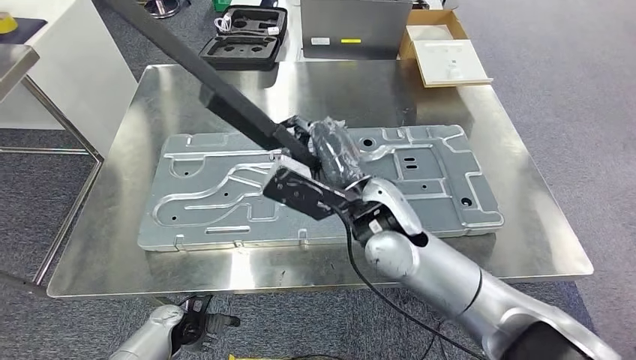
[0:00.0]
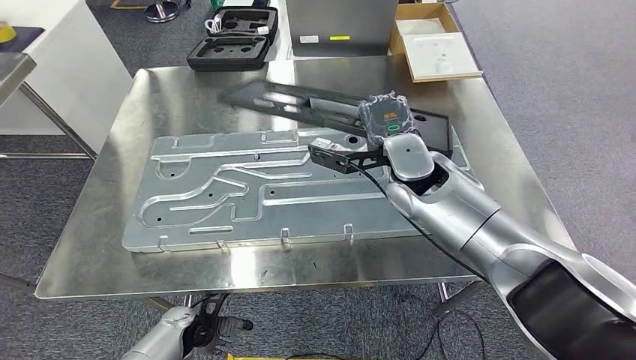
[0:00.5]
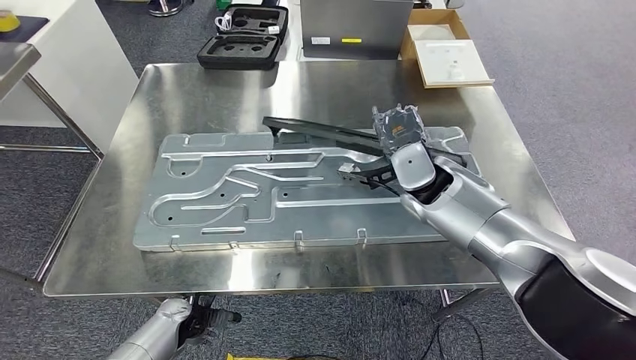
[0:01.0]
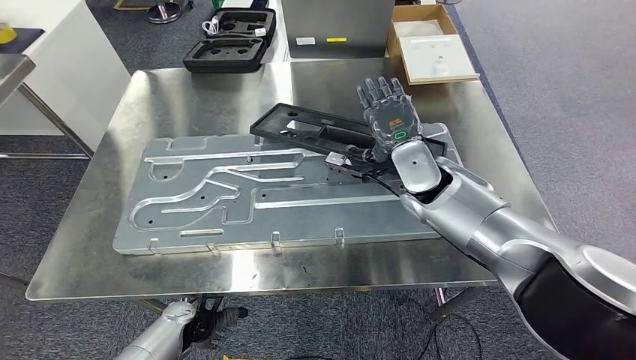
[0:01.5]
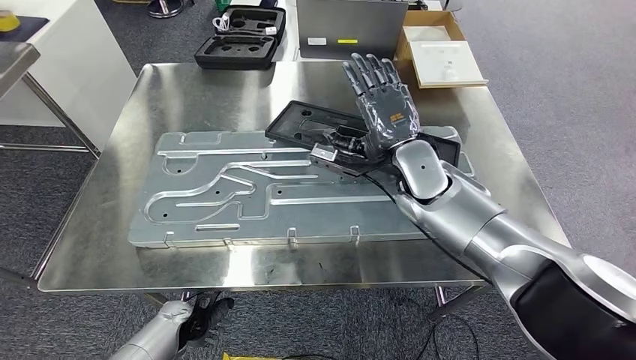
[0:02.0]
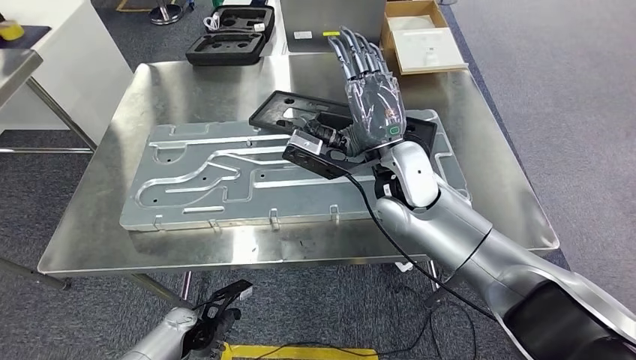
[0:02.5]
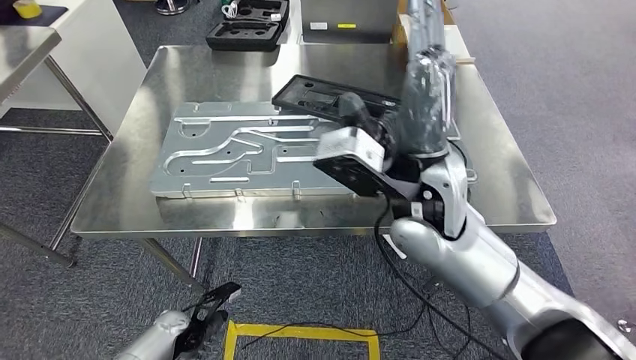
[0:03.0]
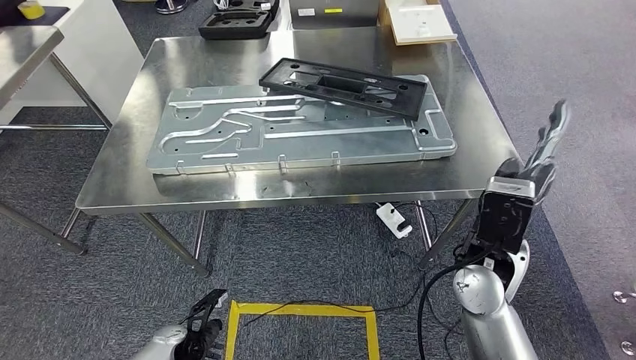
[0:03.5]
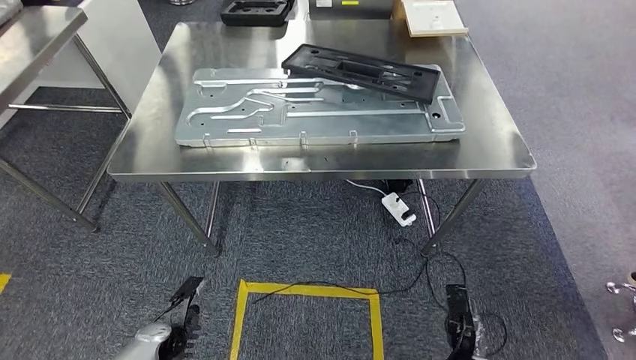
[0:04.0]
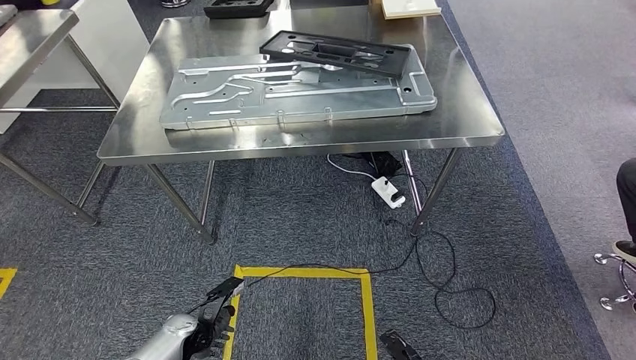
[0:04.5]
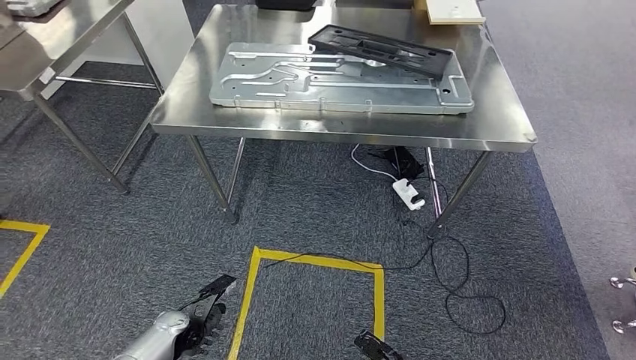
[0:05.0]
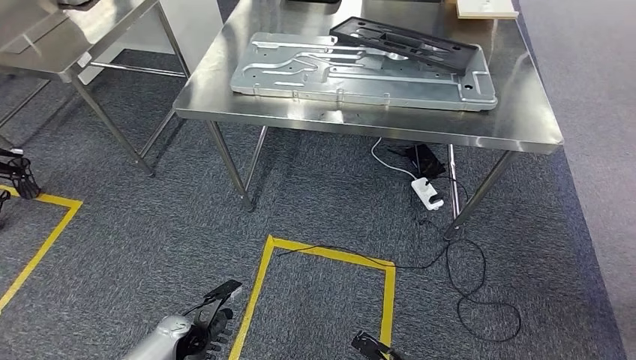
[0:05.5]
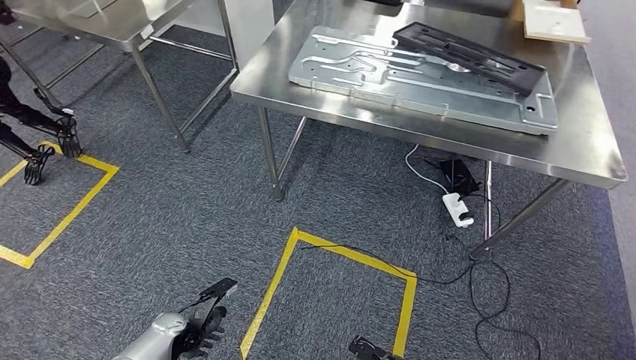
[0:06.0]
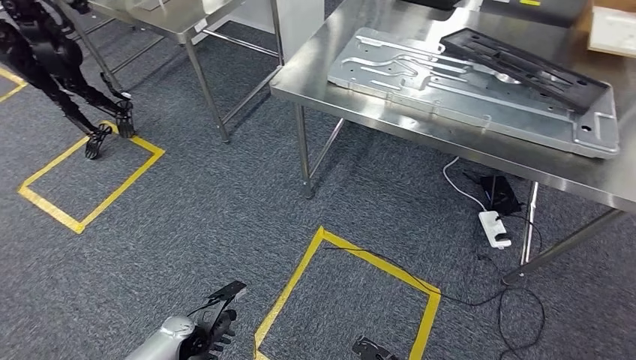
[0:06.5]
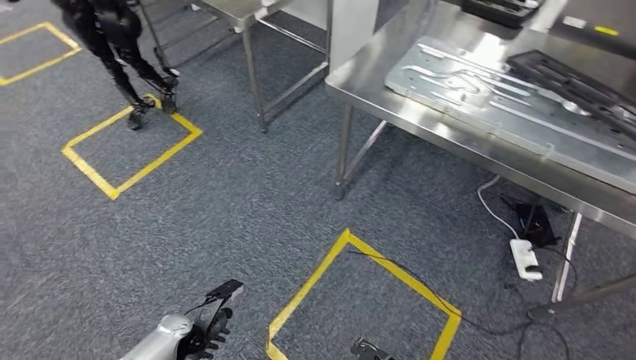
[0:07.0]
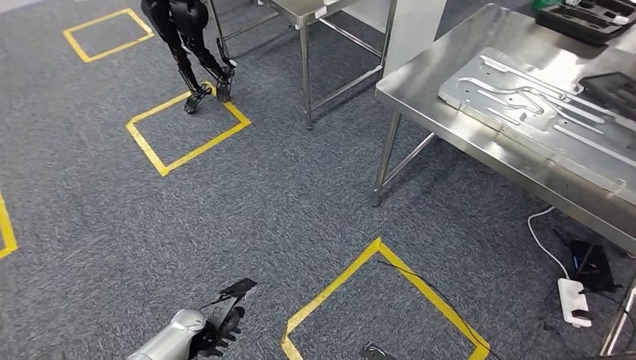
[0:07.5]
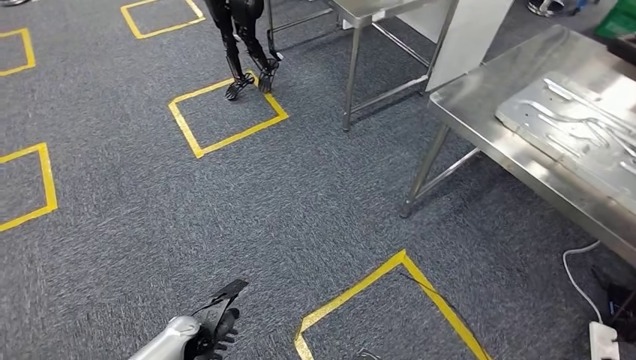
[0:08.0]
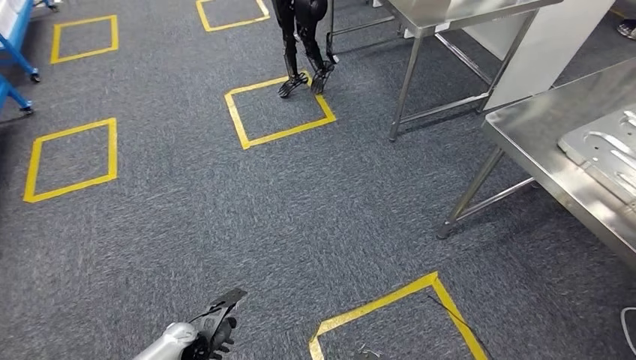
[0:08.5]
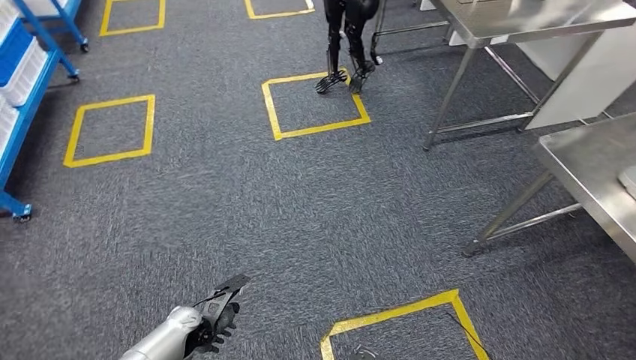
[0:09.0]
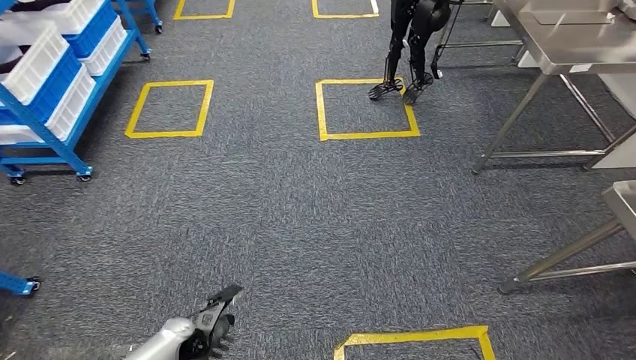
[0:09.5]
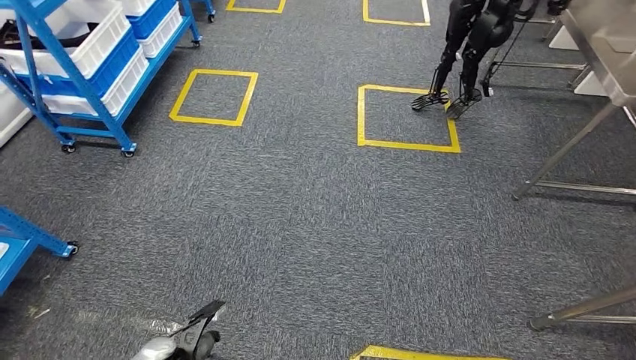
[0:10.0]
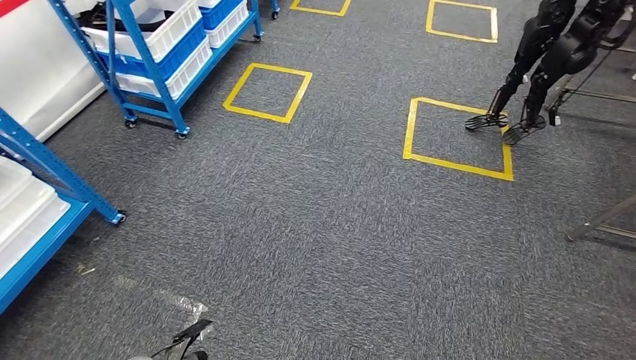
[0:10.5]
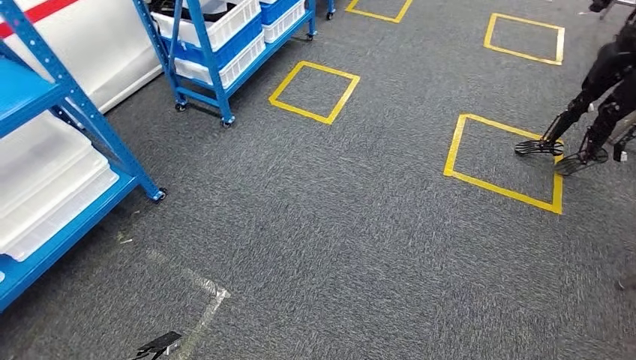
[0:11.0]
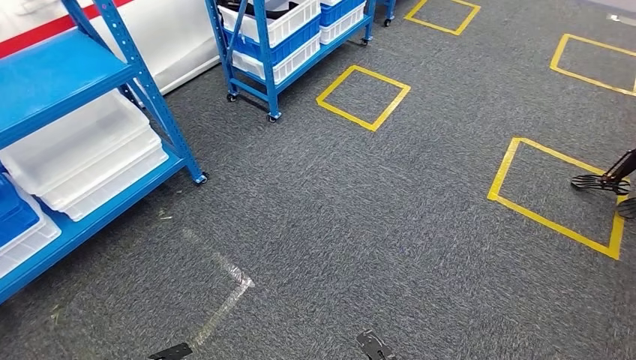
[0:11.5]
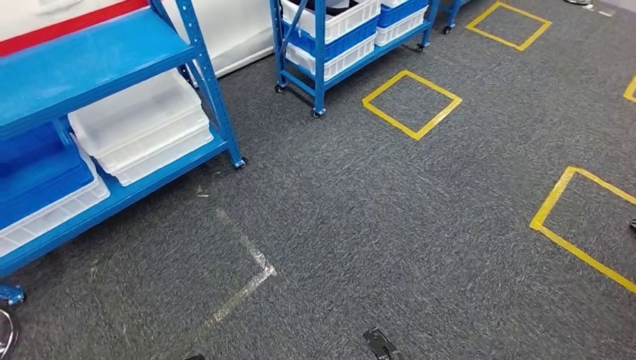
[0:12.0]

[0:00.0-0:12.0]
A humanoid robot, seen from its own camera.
Step, 0:00.0 to 0:04.0: Insert the large material into the corresponding slot on the workbench.

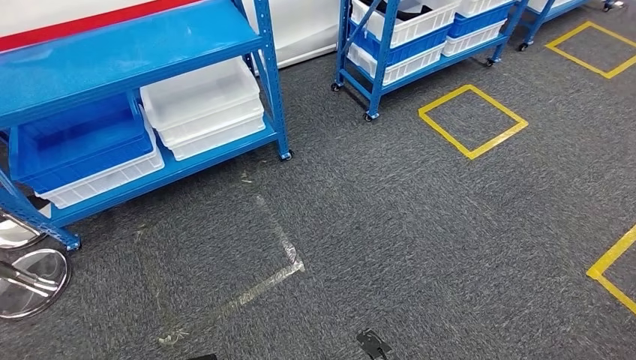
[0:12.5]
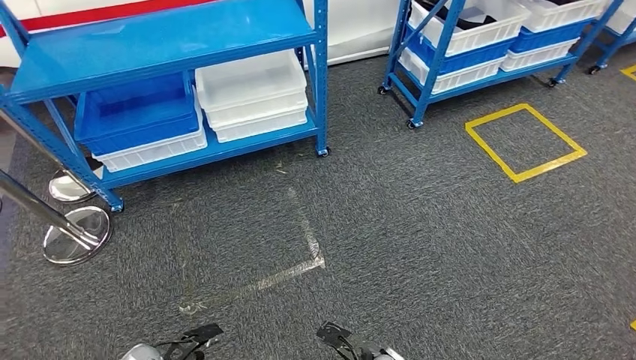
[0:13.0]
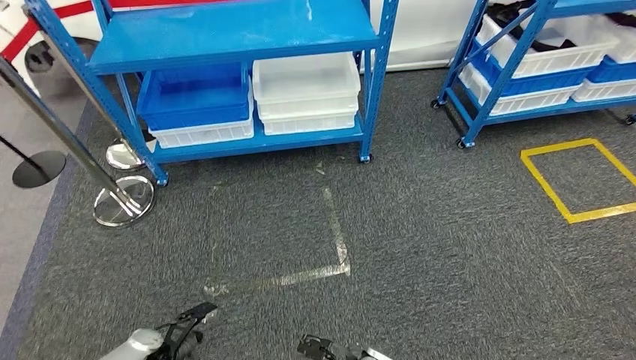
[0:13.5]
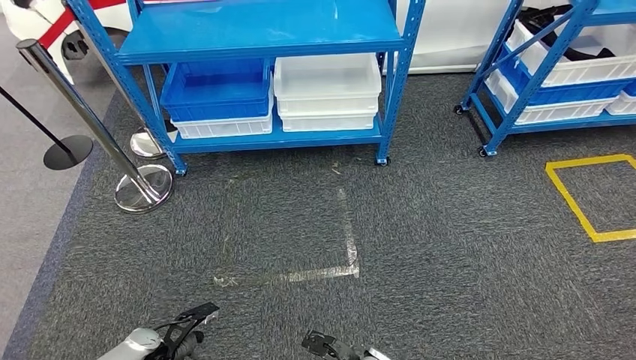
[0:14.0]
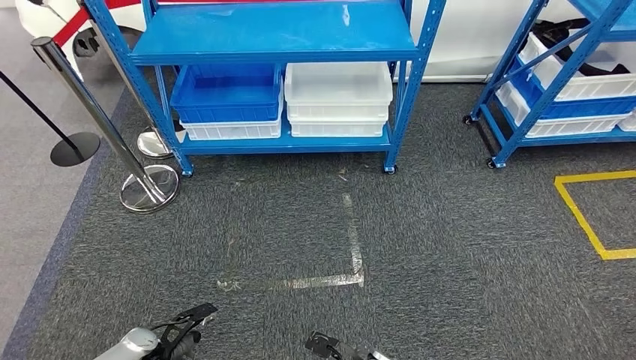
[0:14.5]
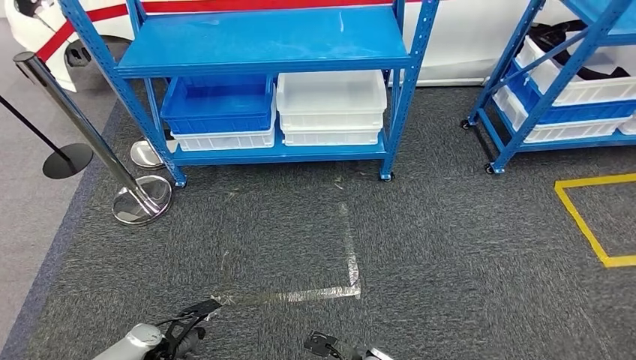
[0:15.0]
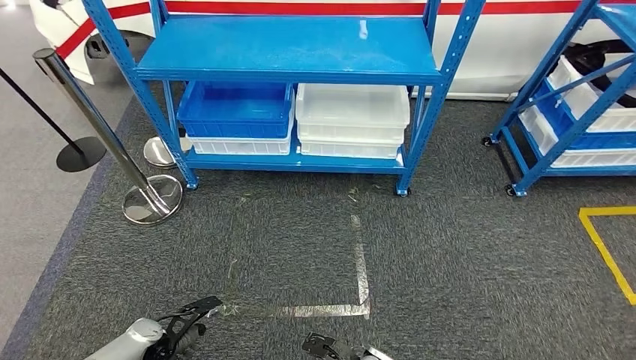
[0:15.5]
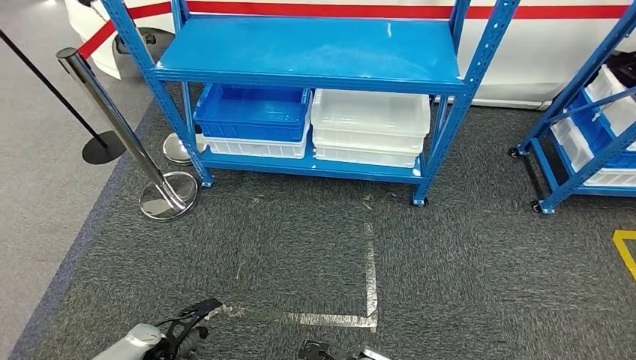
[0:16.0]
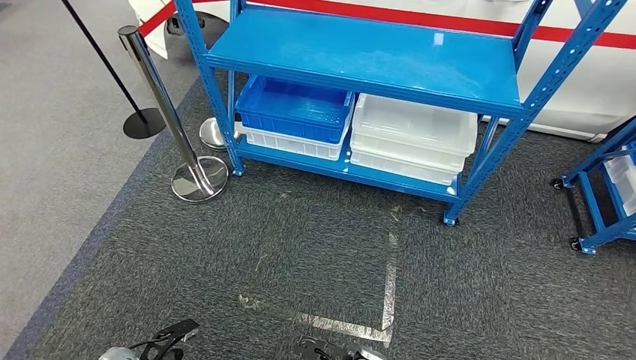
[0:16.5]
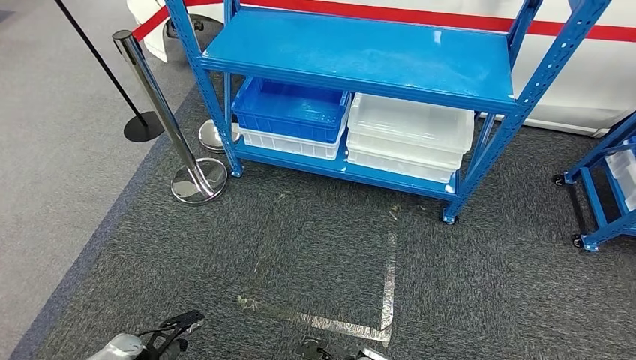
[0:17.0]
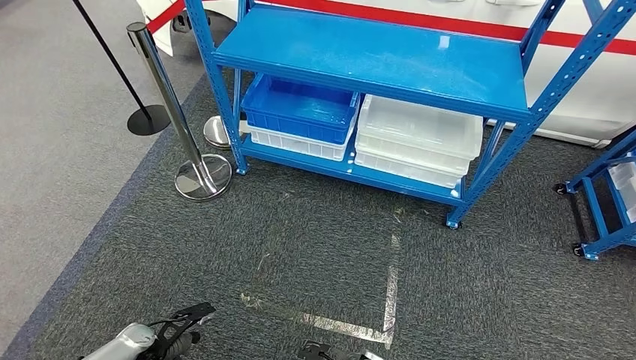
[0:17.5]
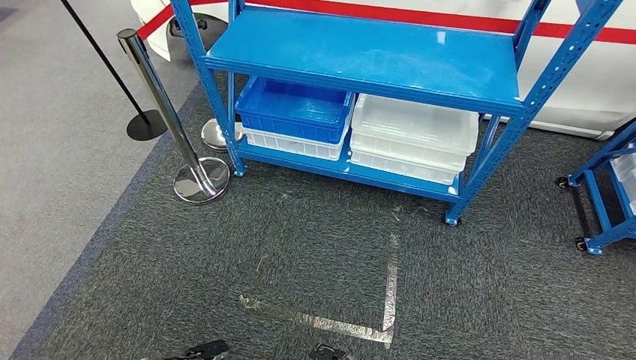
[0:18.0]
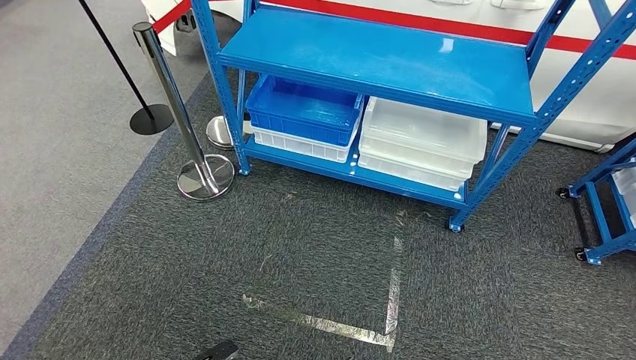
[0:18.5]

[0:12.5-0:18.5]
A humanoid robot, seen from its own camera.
Step, 0:12.5 to 0:18.5: Move to the initial position of the shelf.
0:16.5 to 0:18.5: The right hand goes approximately 15 cm backward and to the right. Meanwhile the left hand is displaced to the right and backward by roughly 10 cm.
